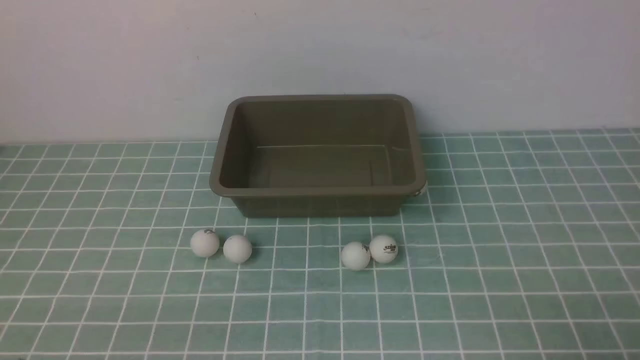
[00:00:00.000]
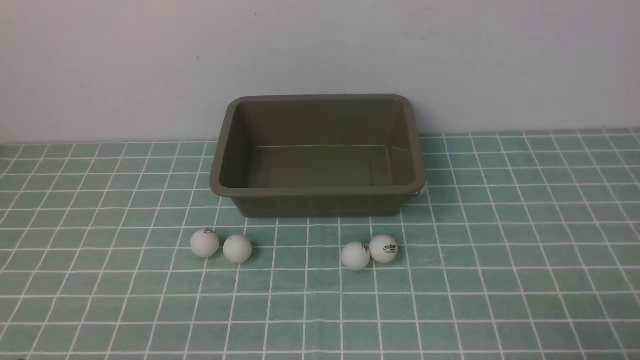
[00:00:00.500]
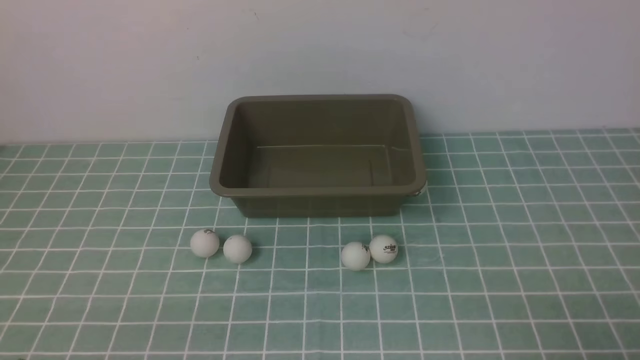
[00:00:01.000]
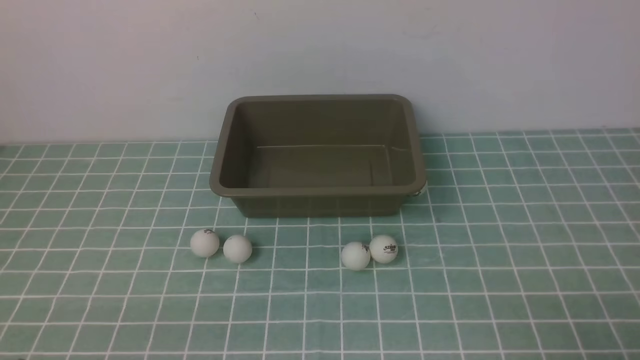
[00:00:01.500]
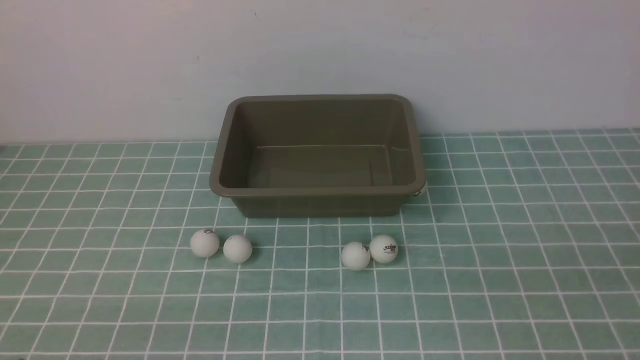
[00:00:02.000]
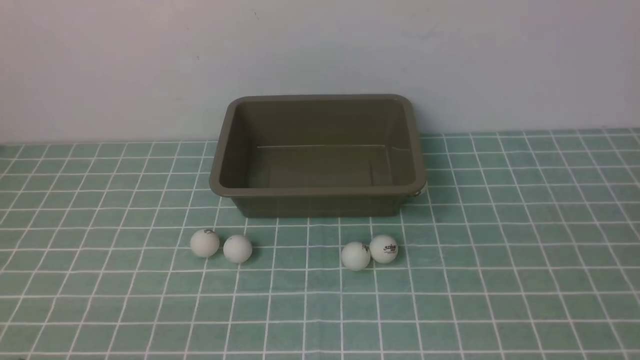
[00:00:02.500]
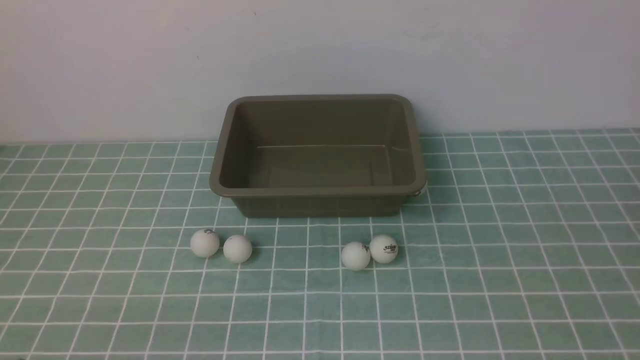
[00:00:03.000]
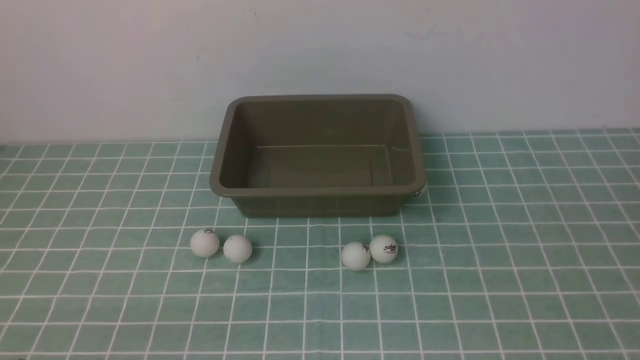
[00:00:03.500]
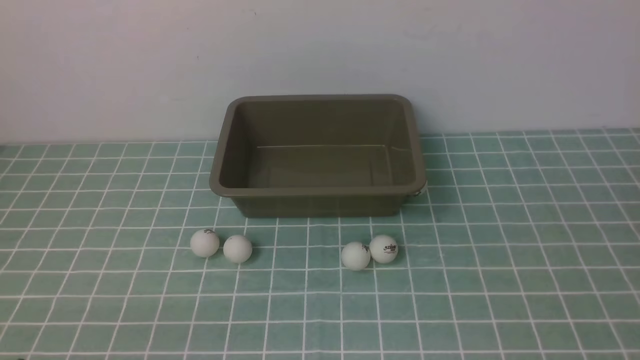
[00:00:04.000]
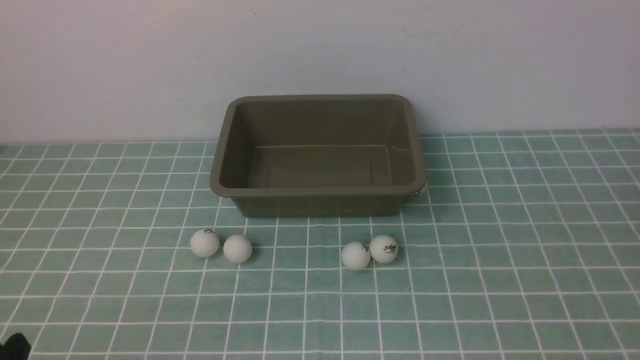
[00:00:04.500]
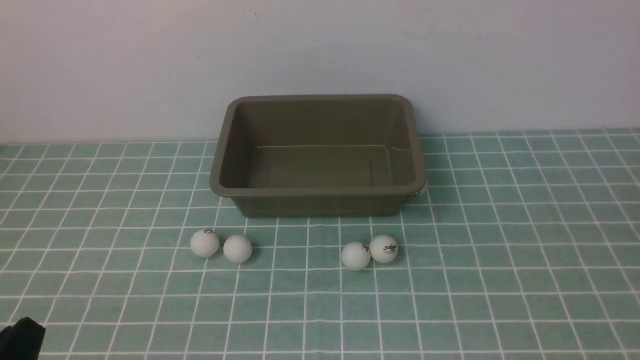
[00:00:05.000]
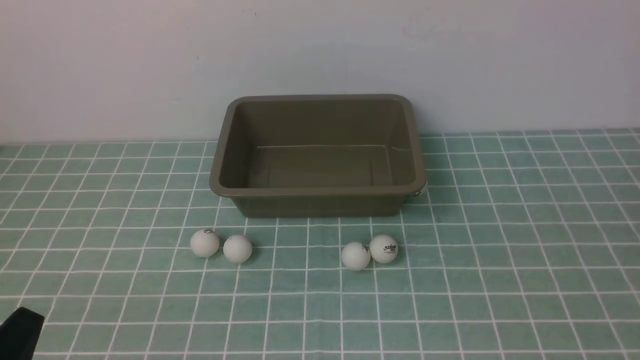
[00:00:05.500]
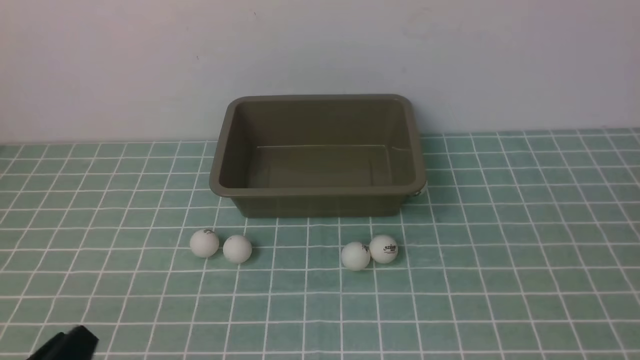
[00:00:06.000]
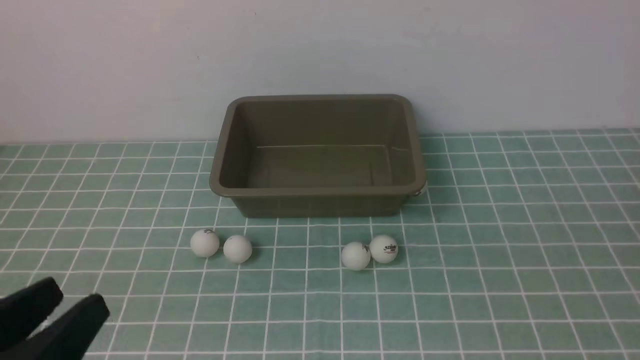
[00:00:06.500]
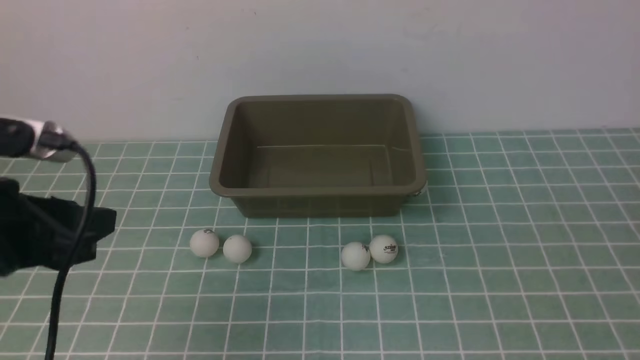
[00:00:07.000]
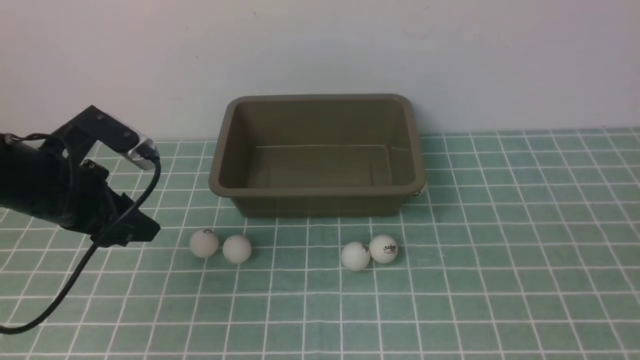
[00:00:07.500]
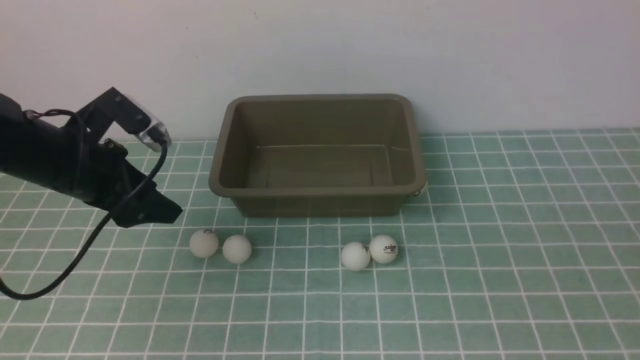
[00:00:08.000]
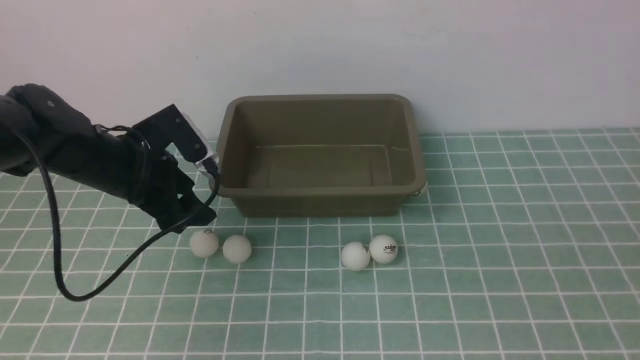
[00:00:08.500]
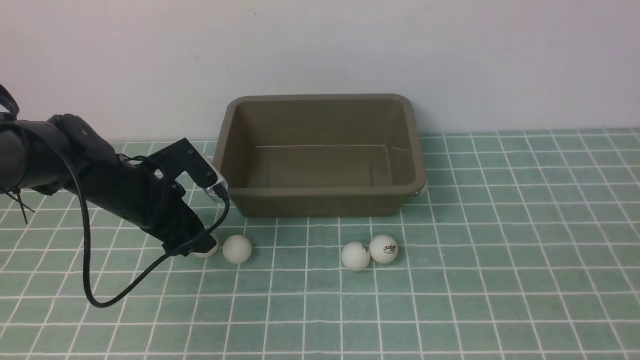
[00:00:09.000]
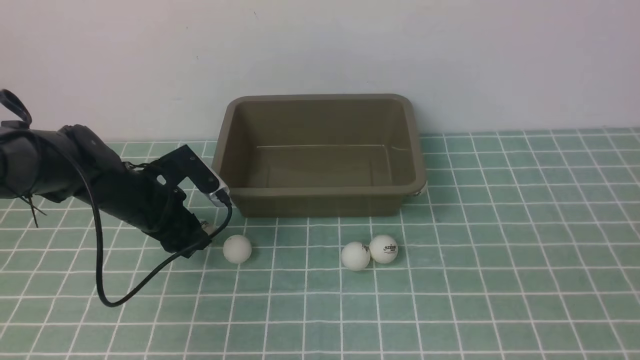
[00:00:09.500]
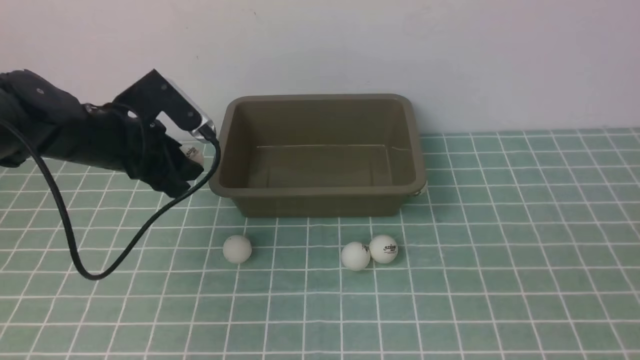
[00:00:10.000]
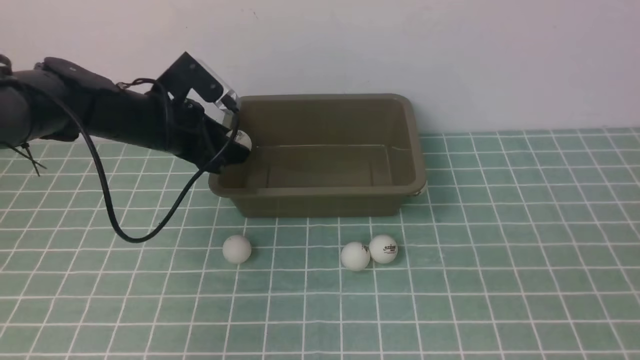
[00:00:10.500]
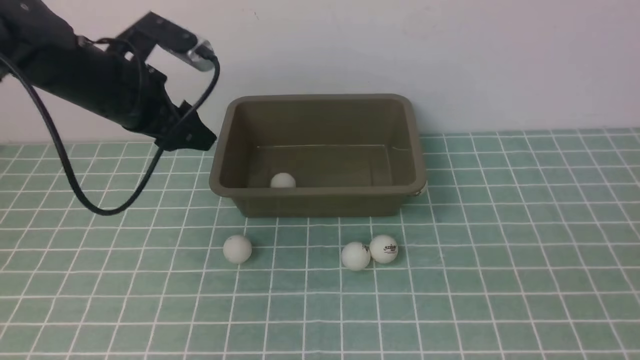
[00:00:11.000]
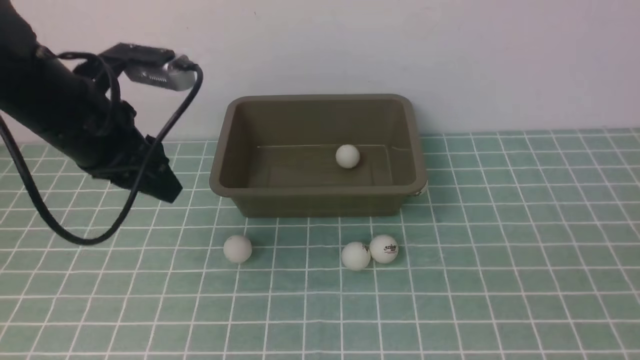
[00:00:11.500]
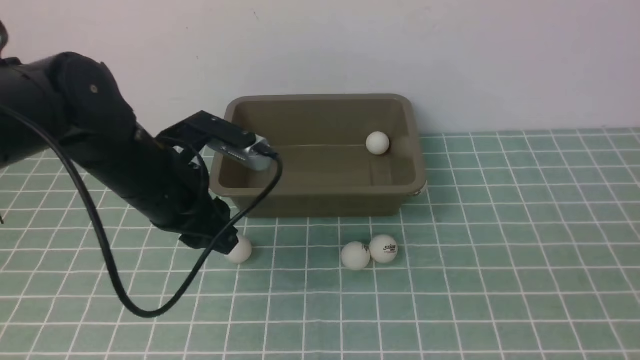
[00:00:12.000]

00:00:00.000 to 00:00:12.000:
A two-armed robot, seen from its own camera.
Step, 00:00:00.000 to 00:00:09.500: use the left arm to clamp the table tennis ball closest to it.
Step, 00:00:10.000 to 00:00:11.000: use the left arm to put the table tennis ball into the box.
00:00:06.000 to 00:00:08.000: The left gripper travels forward by about 30 cm, and opens.
00:00:08.000 to 00:00:10.000: The left gripper goes downward and returns, some 10 cm each way, and closes.
00:00:10.000 to 00:00:12.000: The left gripper goes some 10 cm backward and to the right.

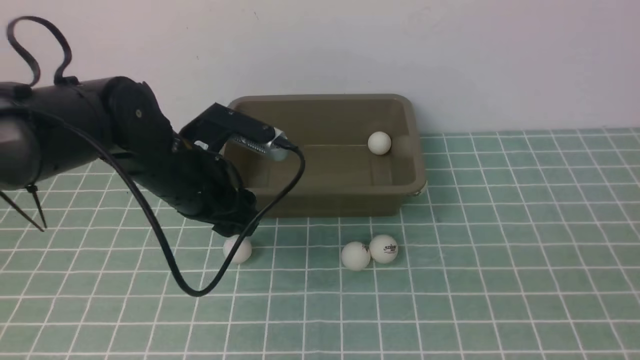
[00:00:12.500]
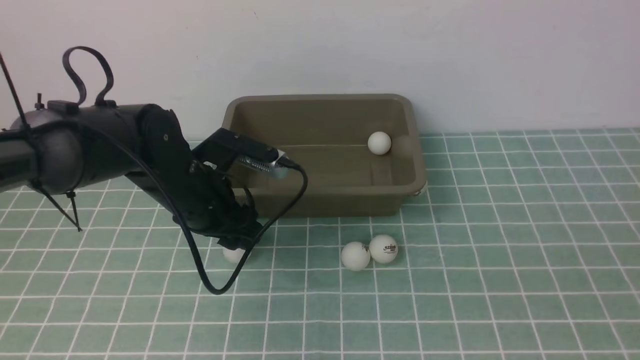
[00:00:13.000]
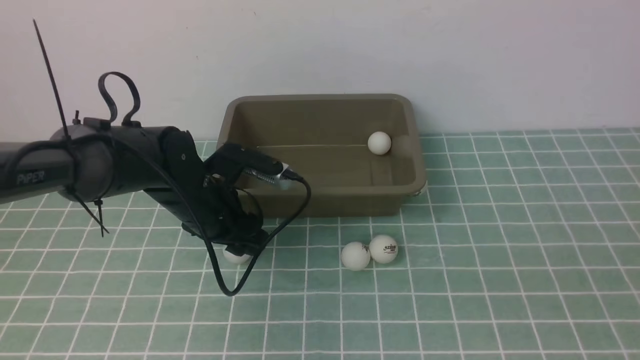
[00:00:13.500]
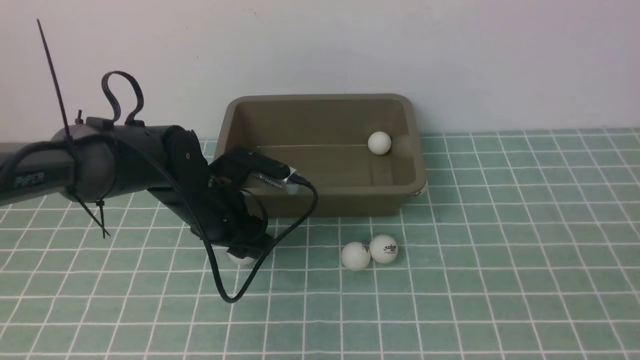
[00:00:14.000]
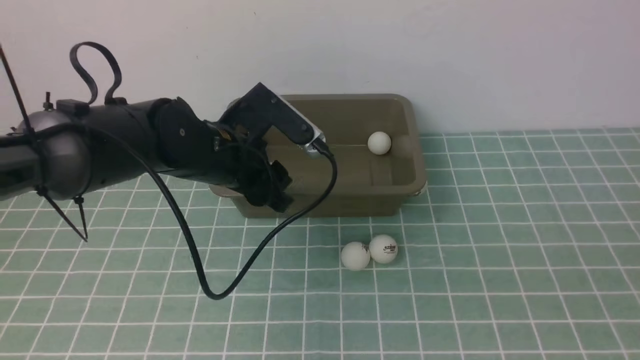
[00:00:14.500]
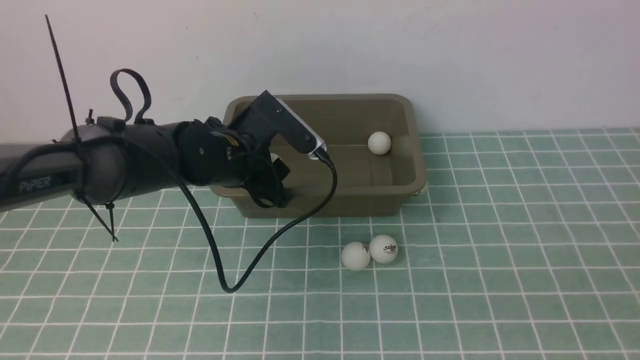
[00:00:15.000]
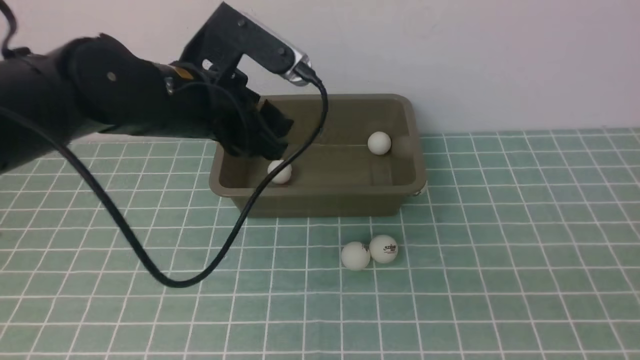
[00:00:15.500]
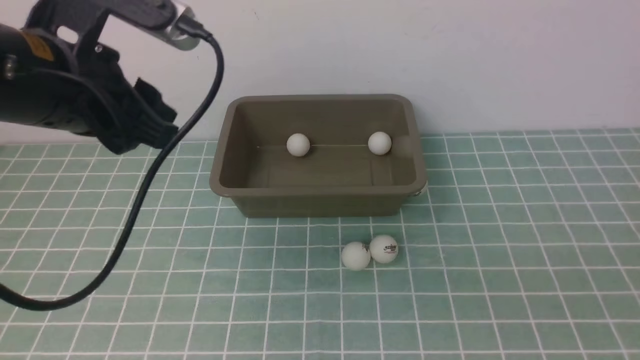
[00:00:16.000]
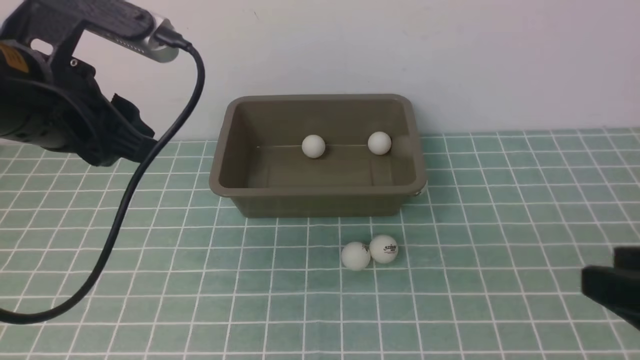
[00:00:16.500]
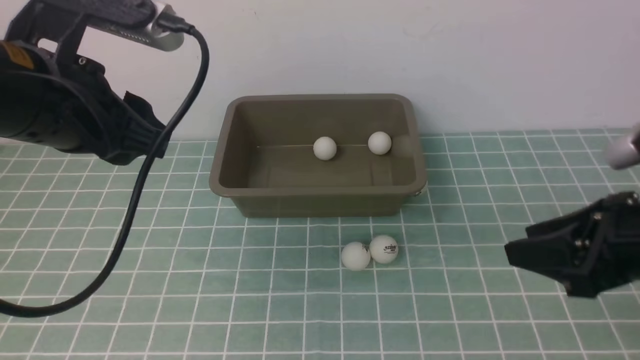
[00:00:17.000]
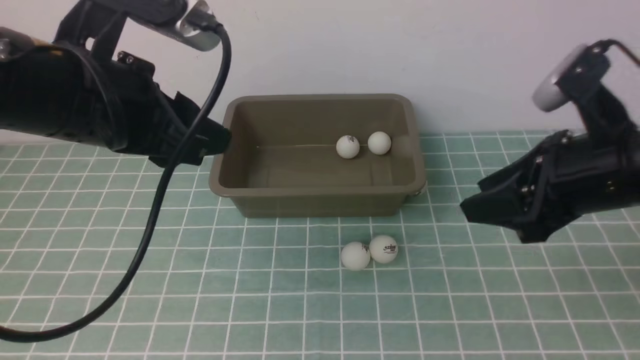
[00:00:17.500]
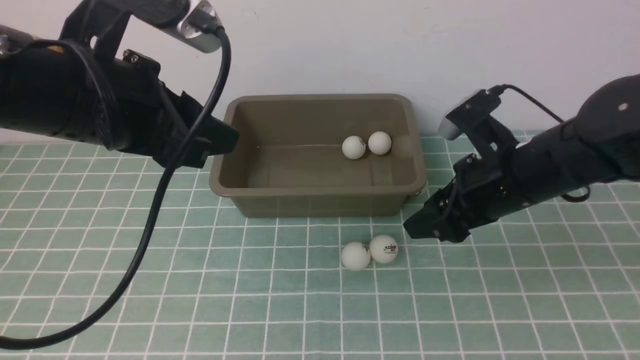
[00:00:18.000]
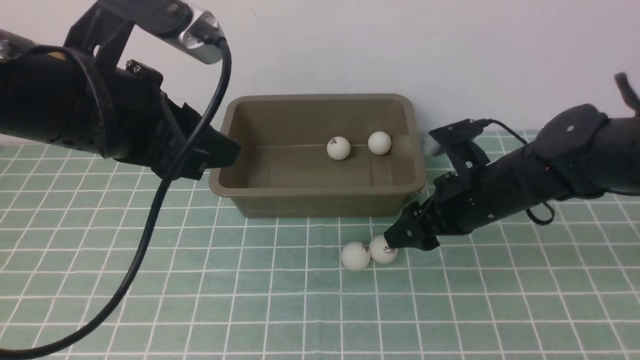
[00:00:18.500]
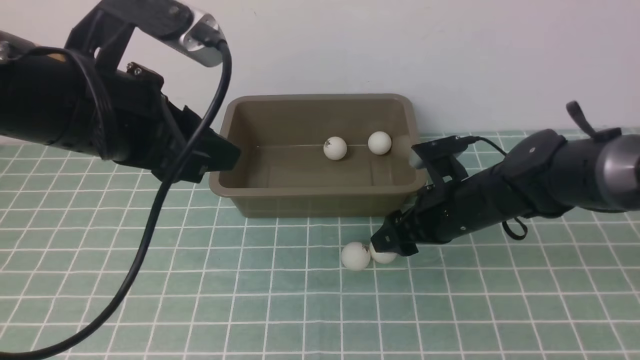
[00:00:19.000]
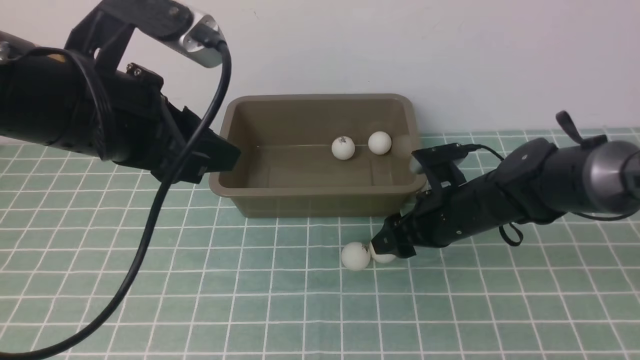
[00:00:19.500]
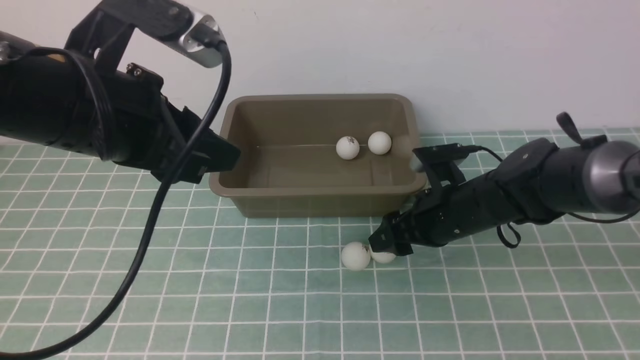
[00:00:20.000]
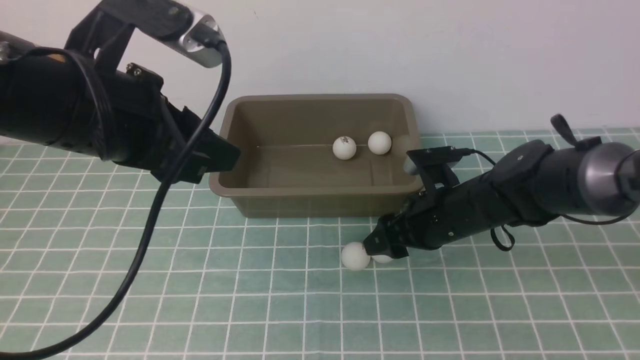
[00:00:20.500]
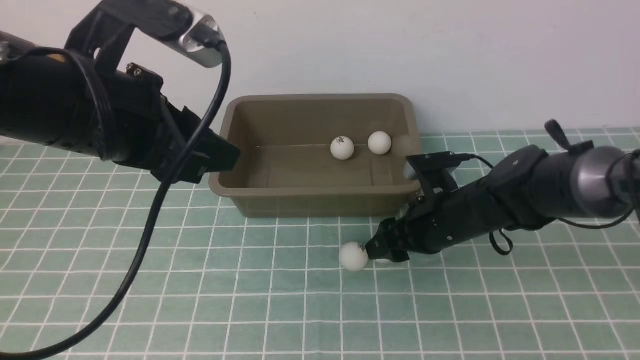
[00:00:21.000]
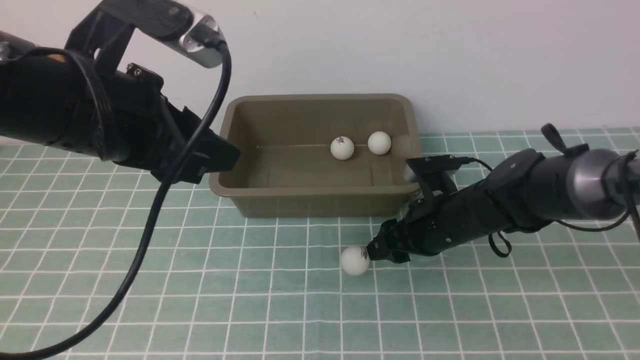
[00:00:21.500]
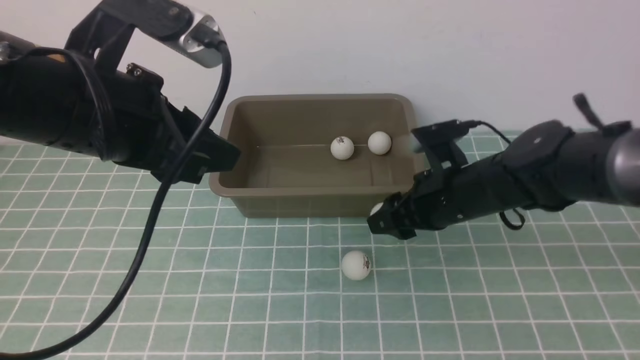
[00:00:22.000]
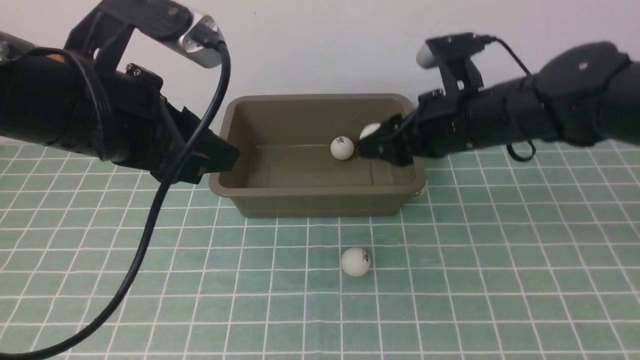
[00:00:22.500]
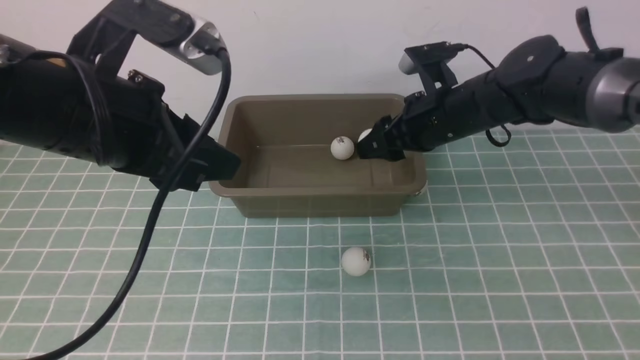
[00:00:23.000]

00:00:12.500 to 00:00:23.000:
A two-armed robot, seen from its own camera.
Step, 00:00:12.500 to 00:00:14.000: use the left arm to clamp the table tennis ball closest to it.
Step, 00:00:14.500 to 00:00:15.500: use the left arm to put the table tennis ball into the box.
Step, 00:00:16.000 to 00:00:21.500: use the right arm to clamp the table tennis ball closest to it.
00:00:12.500 to 00:00:14.500: The left gripper ends up roughly 5 cm from where it was.
00:00:14.500 to 00:00:16.500: The left gripper goes about 20 cm upward, backward and to the left. The right gripper heads forward, covering roughly 10 cm.
00:00:16.500 to 00:00:19.000: The right gripper travels forward, downward and to the left by some 25 cm, and opens.
00:00:19.000 to 00:00:21.000: The right gripper closes its fingers.
00:00:21.000 to 00:00:23.000: The right gripper heads upward and forward, covering about 10 cm.
